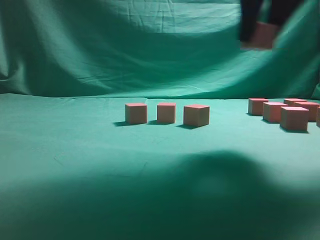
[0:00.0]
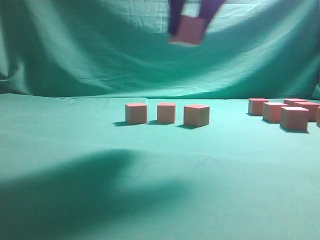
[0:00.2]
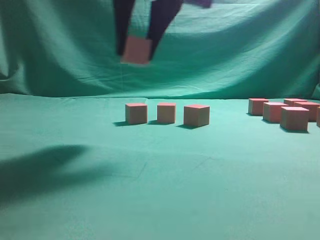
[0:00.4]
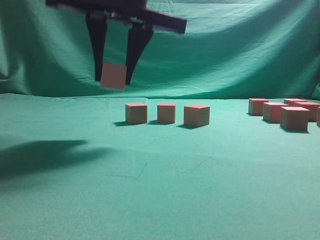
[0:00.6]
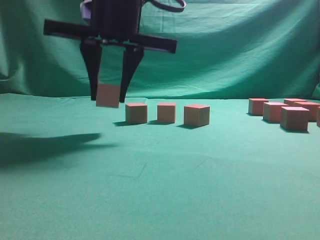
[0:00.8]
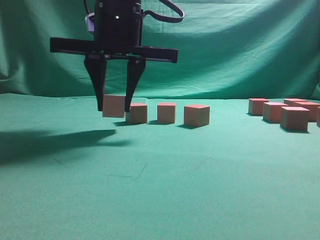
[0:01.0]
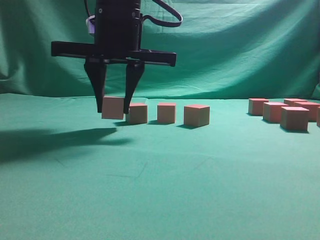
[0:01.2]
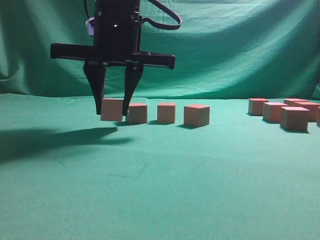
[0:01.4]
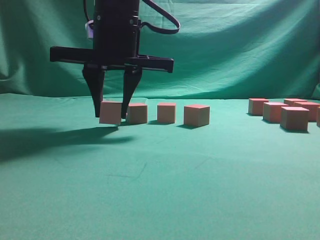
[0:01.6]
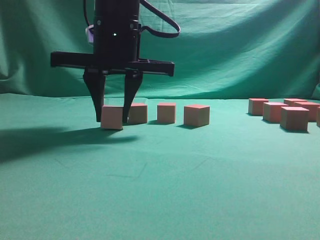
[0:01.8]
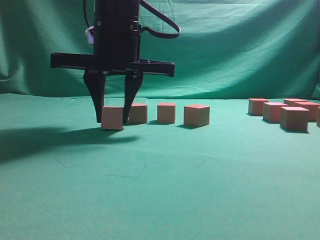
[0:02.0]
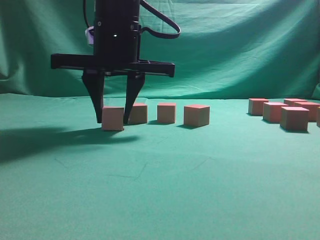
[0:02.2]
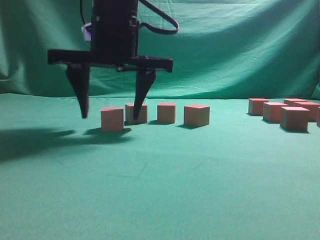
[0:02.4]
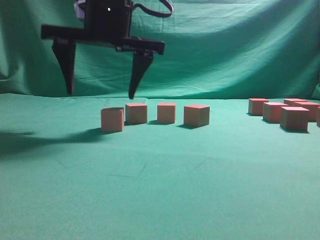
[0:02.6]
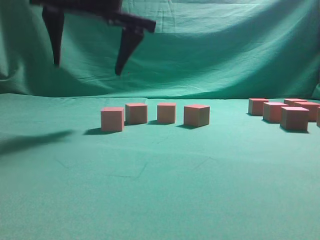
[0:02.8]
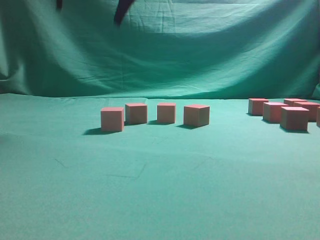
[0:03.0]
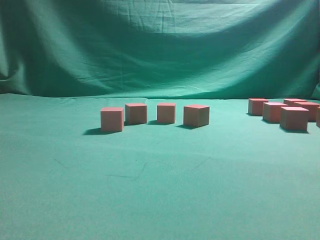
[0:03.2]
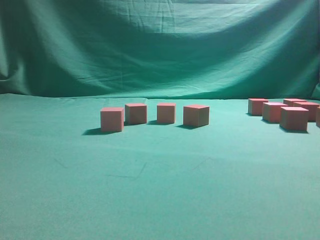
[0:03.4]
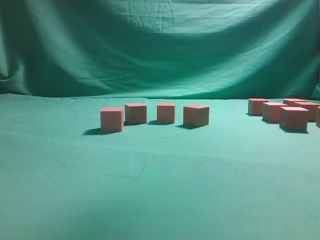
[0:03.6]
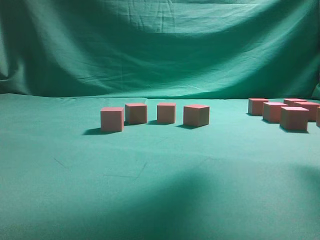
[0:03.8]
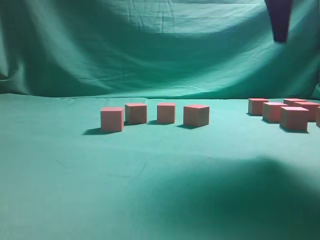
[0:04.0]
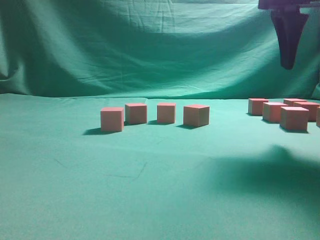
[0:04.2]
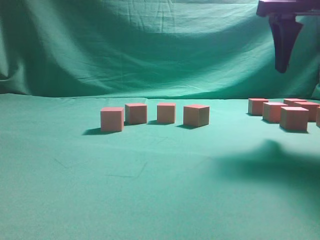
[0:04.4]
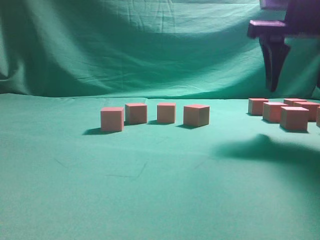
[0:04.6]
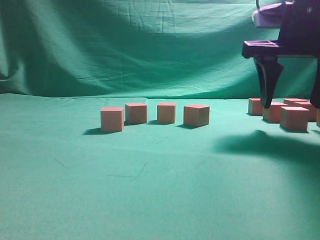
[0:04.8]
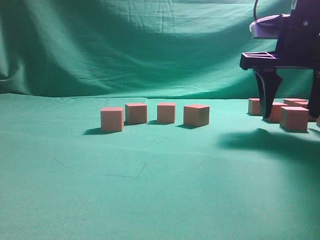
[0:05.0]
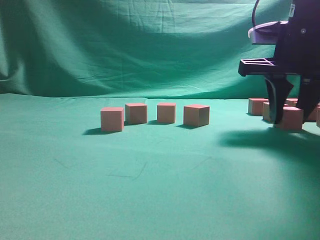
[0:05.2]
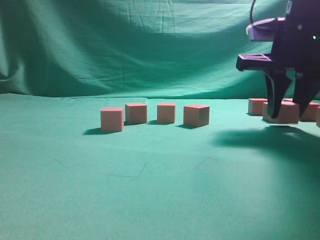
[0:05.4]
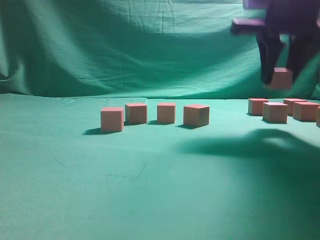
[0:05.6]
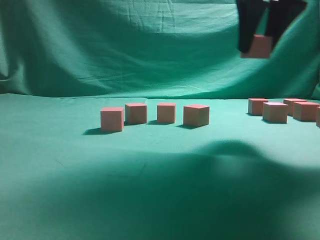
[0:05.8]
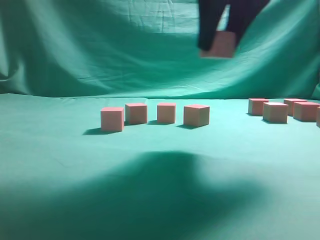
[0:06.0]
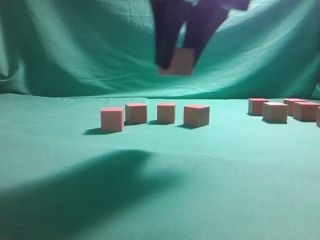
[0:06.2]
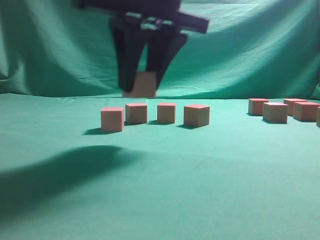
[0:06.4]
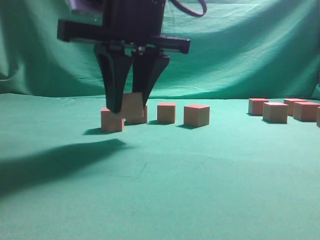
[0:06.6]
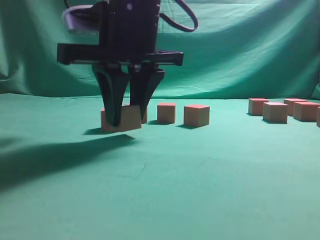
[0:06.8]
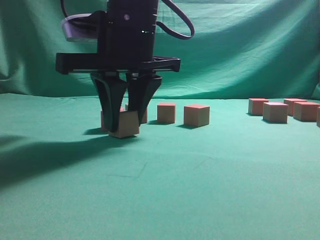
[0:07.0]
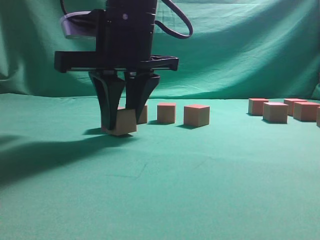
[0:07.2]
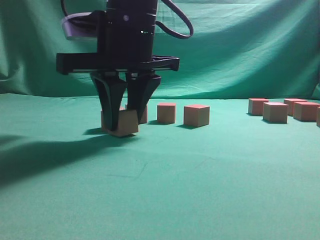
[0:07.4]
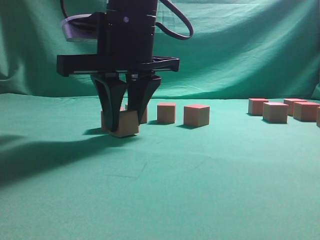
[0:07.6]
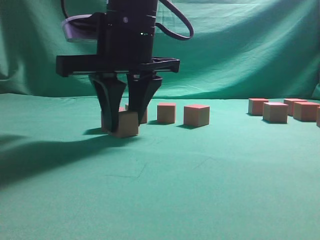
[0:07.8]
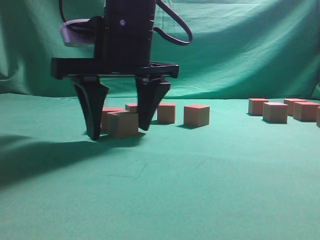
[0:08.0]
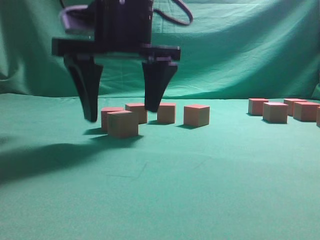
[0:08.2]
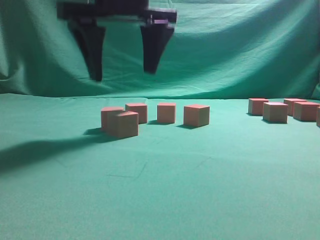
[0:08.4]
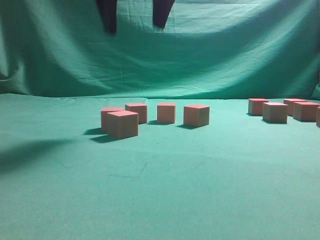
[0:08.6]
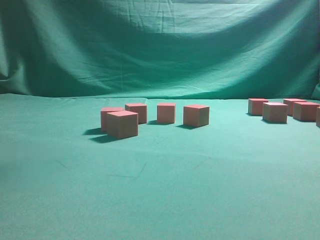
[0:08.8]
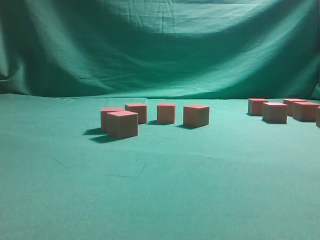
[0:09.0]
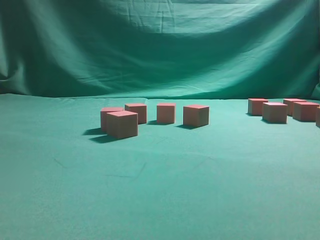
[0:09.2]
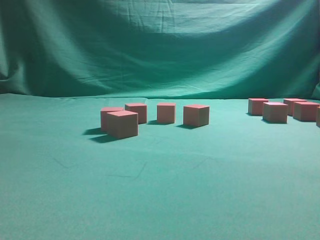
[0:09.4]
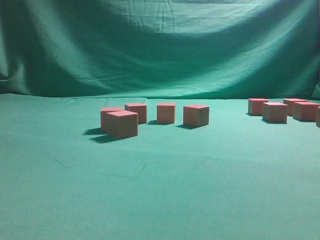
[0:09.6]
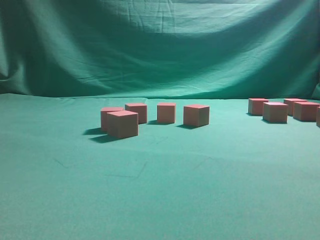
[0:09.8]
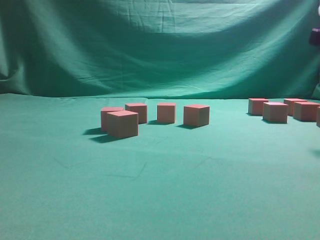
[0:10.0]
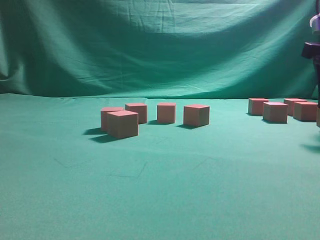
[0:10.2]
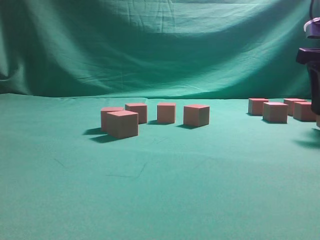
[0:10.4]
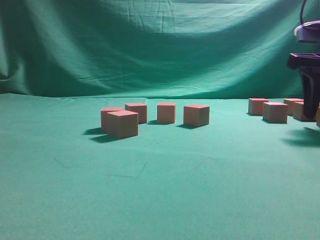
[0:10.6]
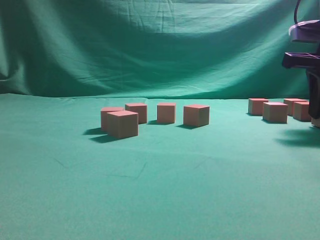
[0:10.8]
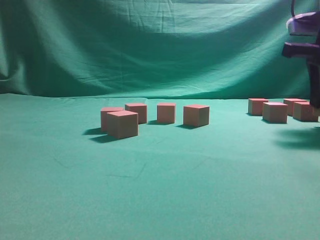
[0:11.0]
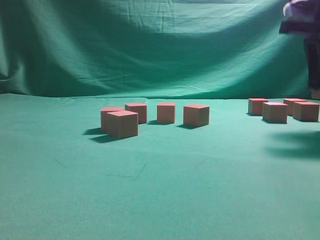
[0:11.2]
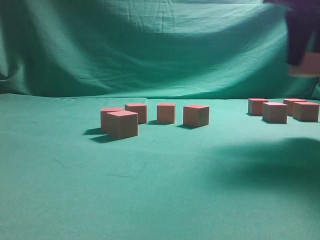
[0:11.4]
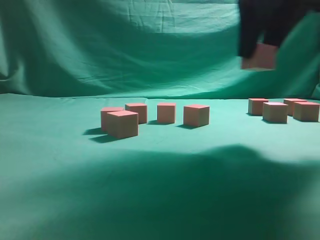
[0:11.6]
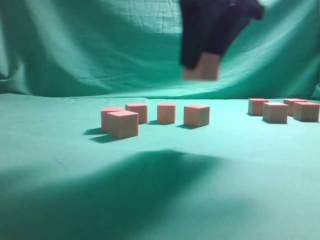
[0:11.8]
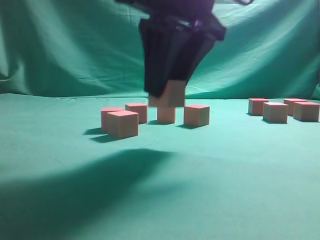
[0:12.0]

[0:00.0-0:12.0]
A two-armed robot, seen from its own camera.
Task of the whole recording: pick up the multiple cubes in two columns one by one and place them in another position on the table.
Step, 0:00.0 to 0:02.8: Place the block at the correct position to assemble the letter S.
Step, 0:03.0 to 0:05.4: Pick up the block on the table.
Step, 0:05.6 to 0:08.2: Place the block at the correct position to assemble the letter S.
Step, 0:08.6 to 0:11.2: Pick up the block on the table.
0:00.0 to 0:01.6: The right gripper heads to the left and downward, covering roughly 20 cm.
0:01.6 to 0:03.0: The right gripper shifts some 10 cm upward, and opens.
0:03.0 to 0:04.4: The right gripper goes some 25 cm to the right.
0:04.4 to 0:06.0: The right gripper is displaced to the left by roughly 10 cm, and closes its fingers.
0:06.0 to 0:07.6: The right gripper heads to the left and downward, covering approximately 15 cm.
0:07.6 to 0:09.0: The right gripper heads upward and to the right, covering about 30 cm, and opens.
0:09.0 to 0:10.4: The right gripper moves downward and to the right, approximately 30 cm.
0:10.4 to 0:12.0: The right gripper moves to the left, roughly 25 cm, and closes up.

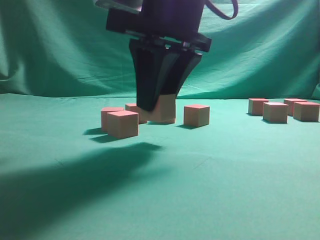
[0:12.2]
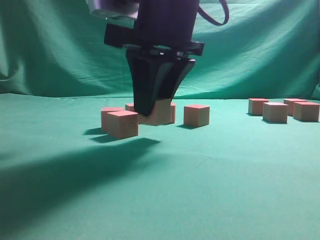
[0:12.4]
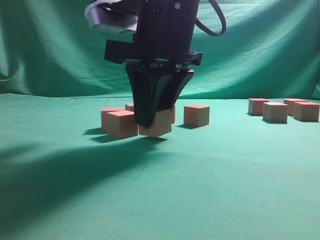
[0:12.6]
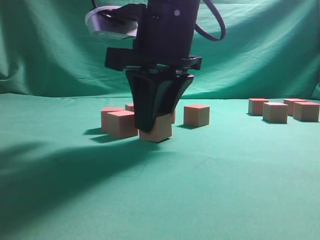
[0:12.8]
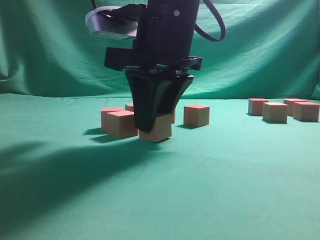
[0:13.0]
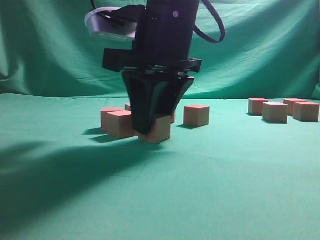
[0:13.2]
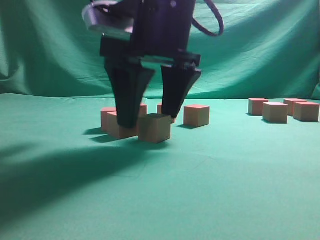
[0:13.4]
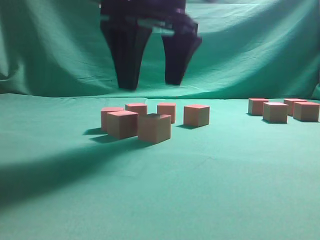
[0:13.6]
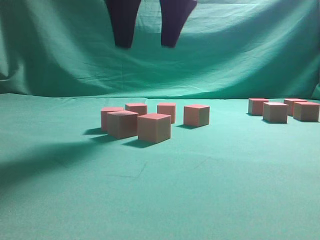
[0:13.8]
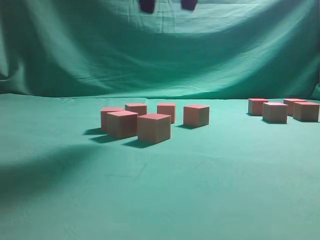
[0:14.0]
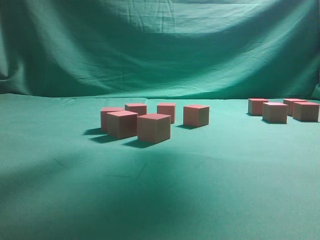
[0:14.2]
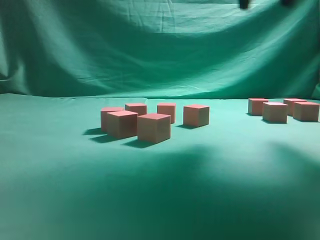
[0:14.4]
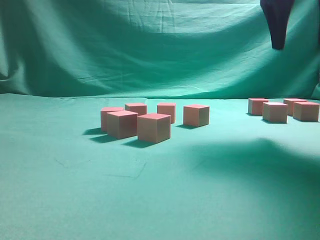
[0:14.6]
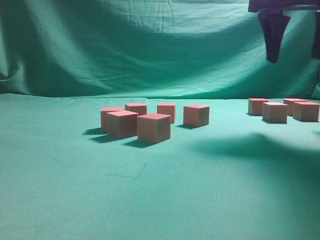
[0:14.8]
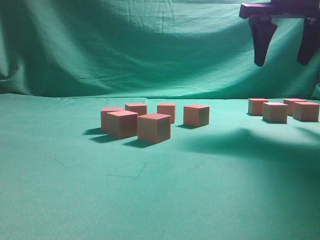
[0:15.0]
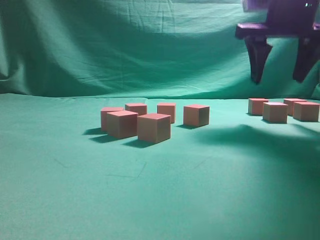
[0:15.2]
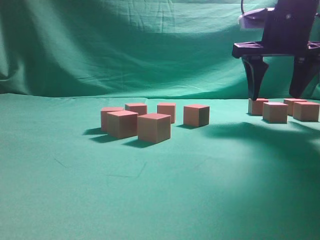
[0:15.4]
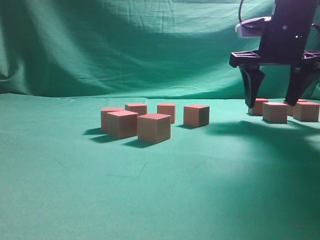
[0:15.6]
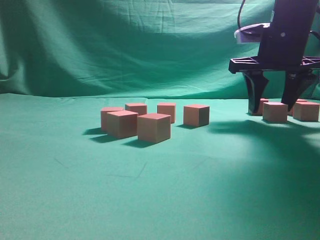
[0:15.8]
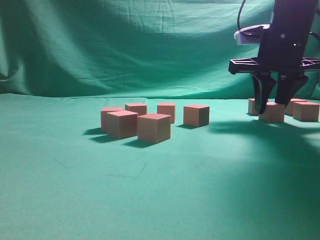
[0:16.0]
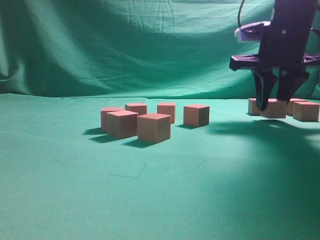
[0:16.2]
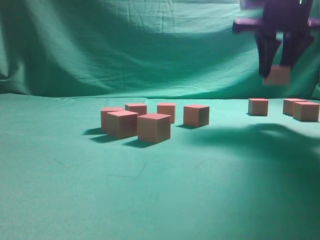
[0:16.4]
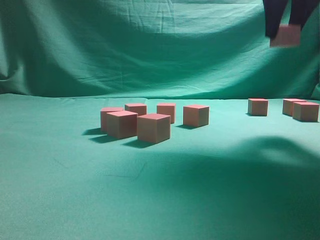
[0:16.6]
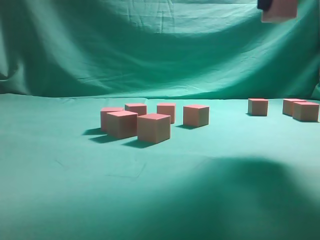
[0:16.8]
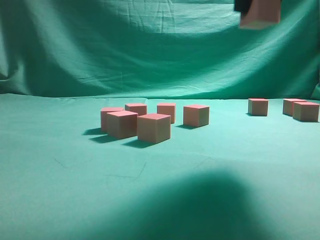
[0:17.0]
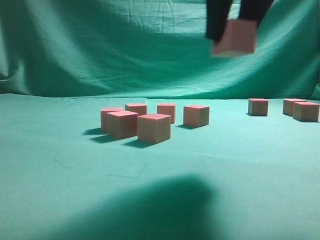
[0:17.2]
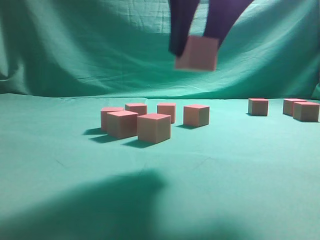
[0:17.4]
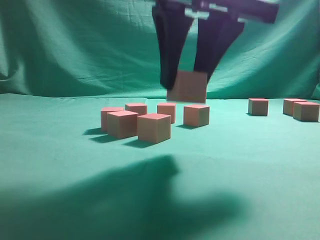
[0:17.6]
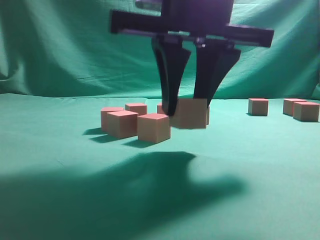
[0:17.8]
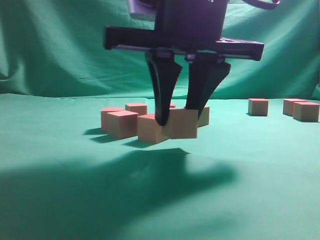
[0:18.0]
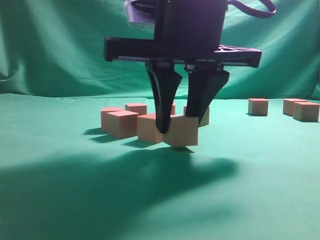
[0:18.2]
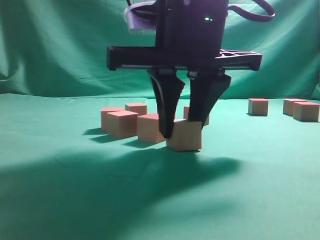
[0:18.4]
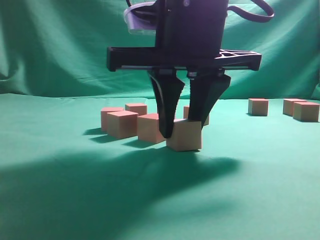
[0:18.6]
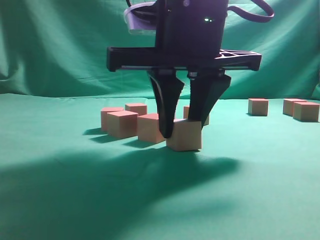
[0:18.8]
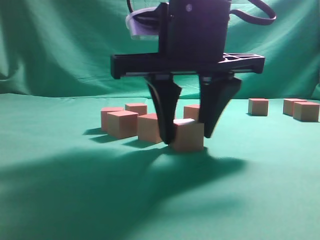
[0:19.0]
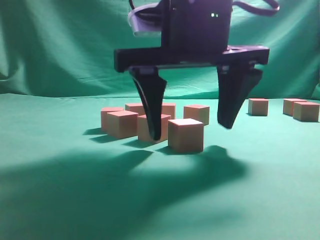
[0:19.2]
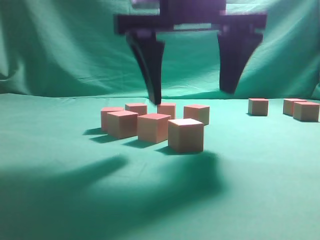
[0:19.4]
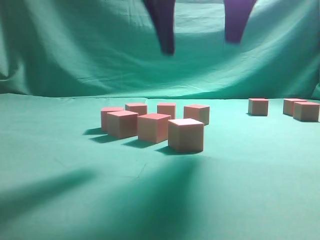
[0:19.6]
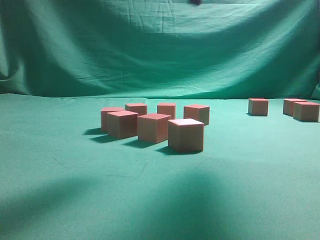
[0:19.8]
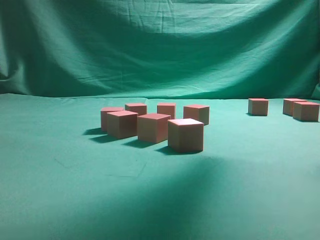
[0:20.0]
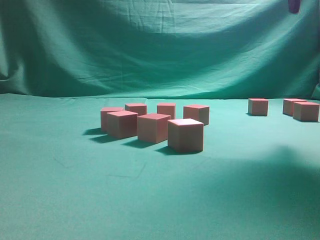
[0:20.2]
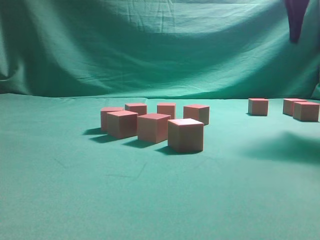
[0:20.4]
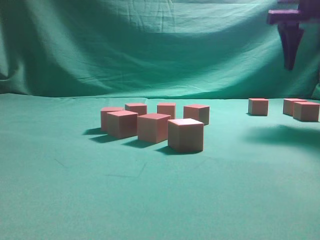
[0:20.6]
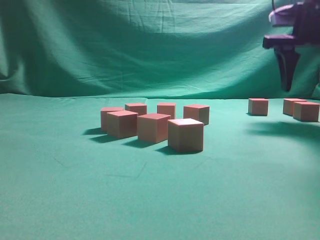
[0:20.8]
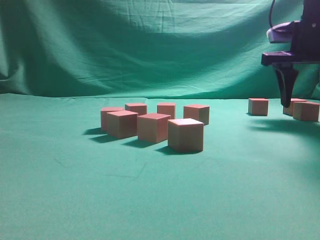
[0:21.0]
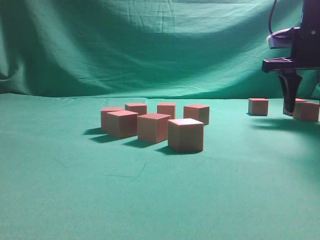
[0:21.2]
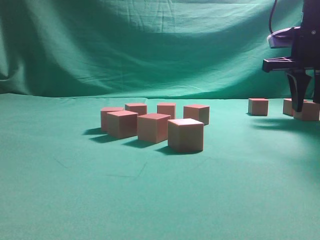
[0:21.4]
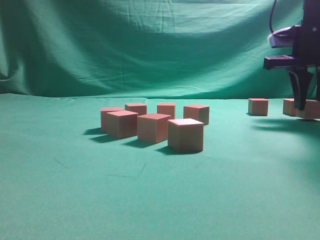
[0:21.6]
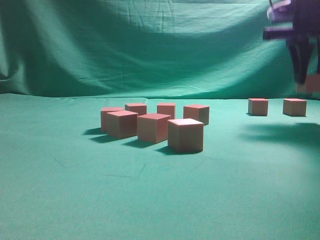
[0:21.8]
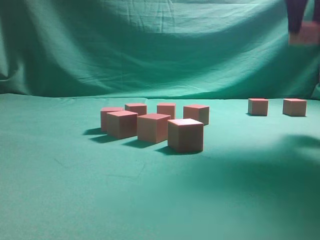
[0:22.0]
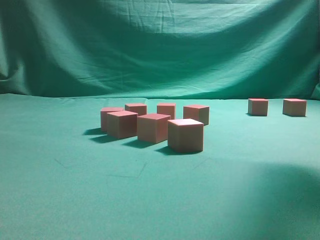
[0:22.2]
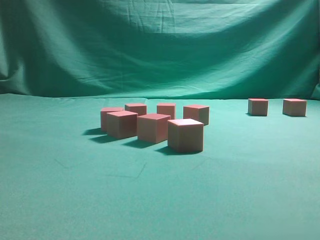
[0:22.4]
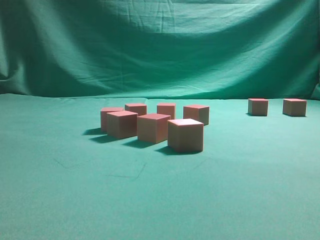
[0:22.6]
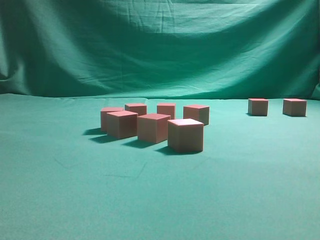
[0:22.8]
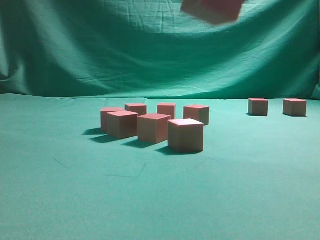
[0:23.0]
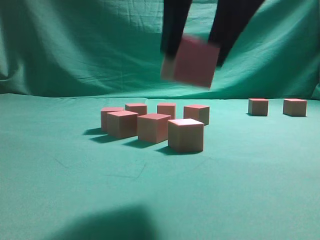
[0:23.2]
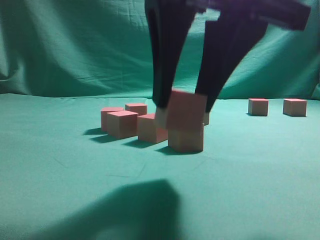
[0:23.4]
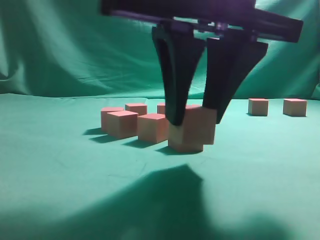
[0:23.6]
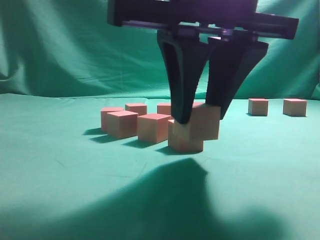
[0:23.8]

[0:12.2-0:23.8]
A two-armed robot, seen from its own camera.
Task of the whole recording: pick up the multiple cubes in two columns one by one and place them in another position on the table.
Step, 0:12.2 to 0:13.6: Place the block at the correct position to assemble the letter S.
Step, 0:13.8 to 0:16.2: Pick up the block on the table.
Step, 0:16.4 to 0:19.4: Place the block at the correct position to assemble the letter S.
Step, 0:19.6 to 0:21.6: Pick up the block on the table.
0:12.2 to 0:13.6: The right gripper opens.
0:13.6 to 0:15.0: The right gripper heads to the right, covering roughly 20 cm.
0:15.0 to 0:16.6: The right gripper closes its fingers.
0:16.6 to 0:18.0: The right gripper travels to the left, backward and downward by roughly 20 cm.
0:18.0 to 0:19.4: The right gripper opens up.
0:19.4 to 0:21.0: The right gripper is displaced to the right and forward by approximately 25 cm.
0:21.0 to 0:22.4: The right gripper is displaced upward and backward by approximately 25 cm, and closes.
0:22.4 to 0:23.8: The right gripper shifts roughly 20 cm downward and to the left.
